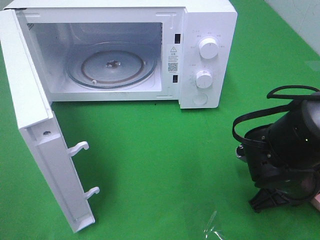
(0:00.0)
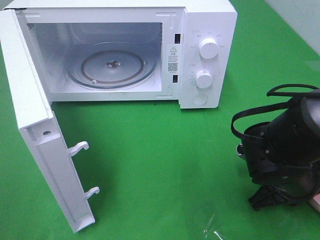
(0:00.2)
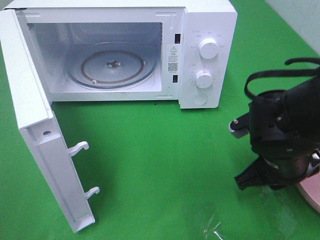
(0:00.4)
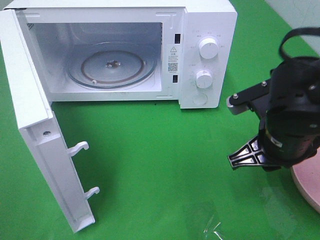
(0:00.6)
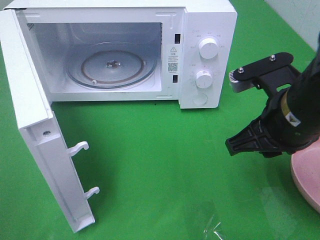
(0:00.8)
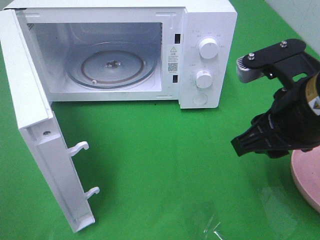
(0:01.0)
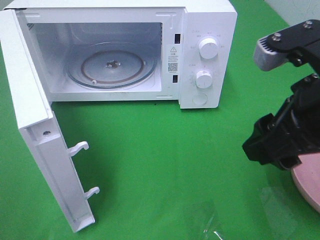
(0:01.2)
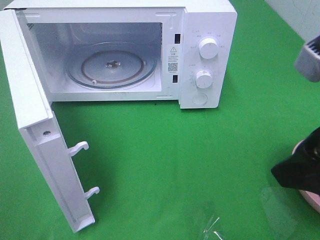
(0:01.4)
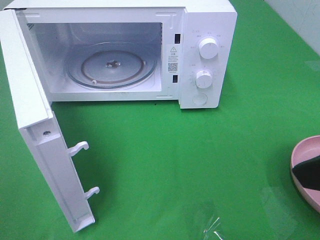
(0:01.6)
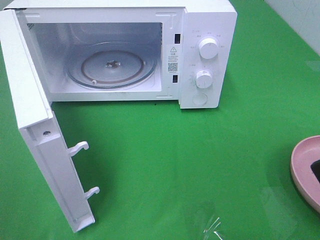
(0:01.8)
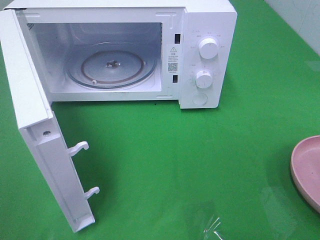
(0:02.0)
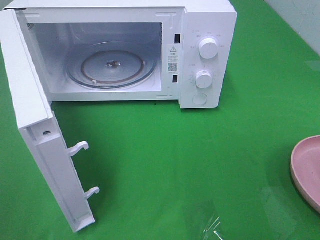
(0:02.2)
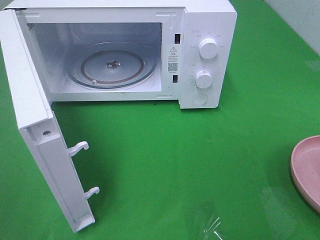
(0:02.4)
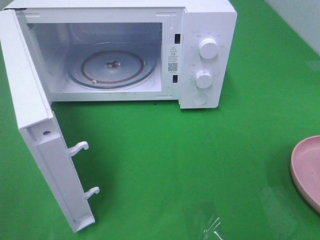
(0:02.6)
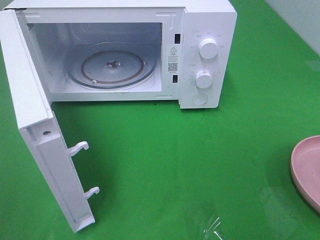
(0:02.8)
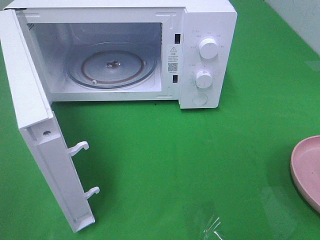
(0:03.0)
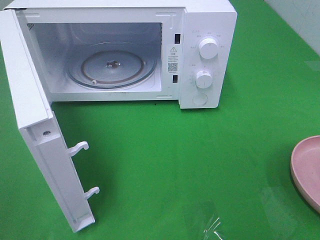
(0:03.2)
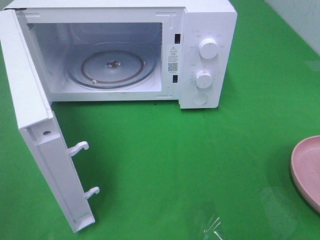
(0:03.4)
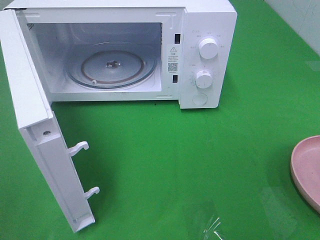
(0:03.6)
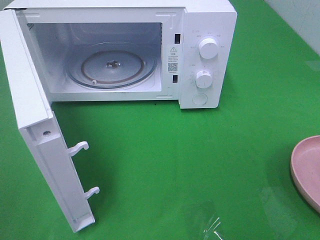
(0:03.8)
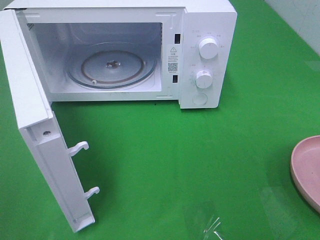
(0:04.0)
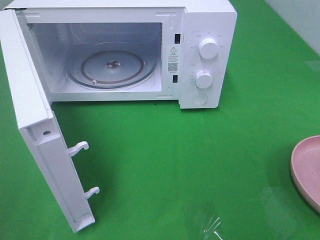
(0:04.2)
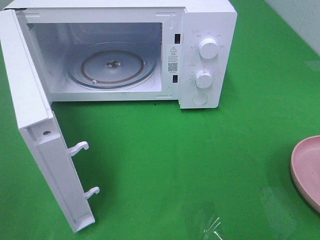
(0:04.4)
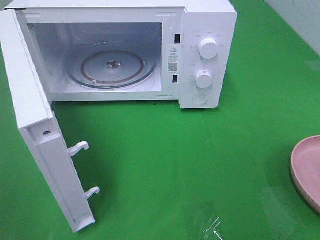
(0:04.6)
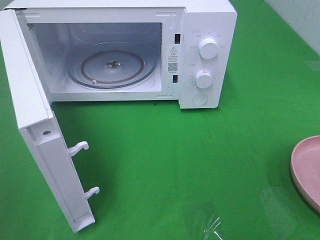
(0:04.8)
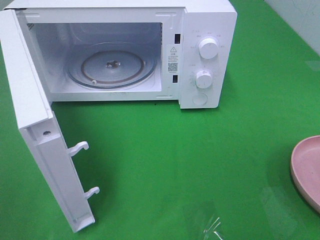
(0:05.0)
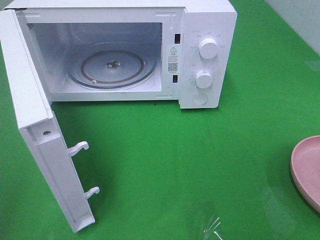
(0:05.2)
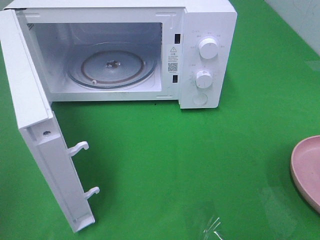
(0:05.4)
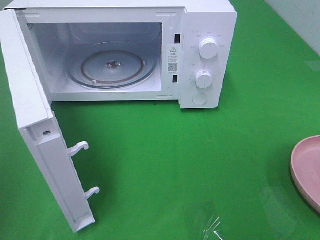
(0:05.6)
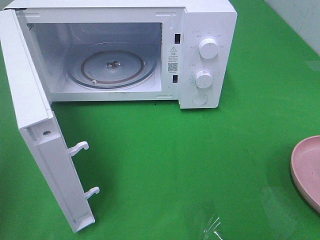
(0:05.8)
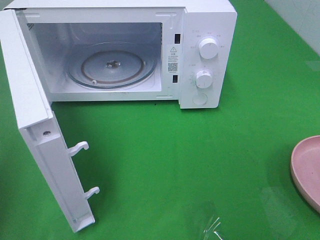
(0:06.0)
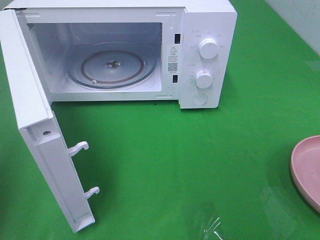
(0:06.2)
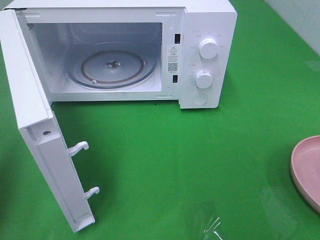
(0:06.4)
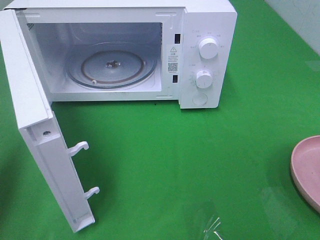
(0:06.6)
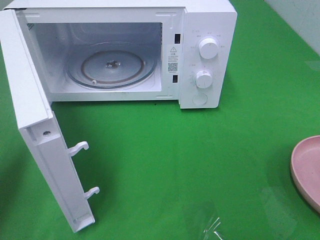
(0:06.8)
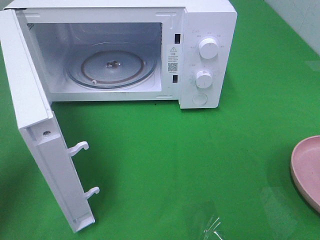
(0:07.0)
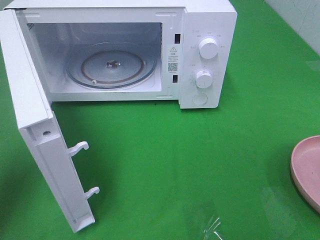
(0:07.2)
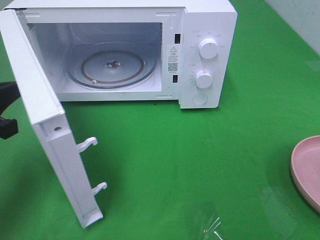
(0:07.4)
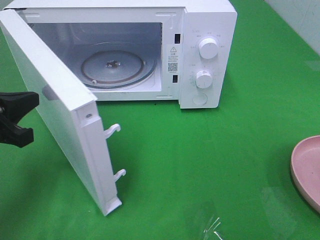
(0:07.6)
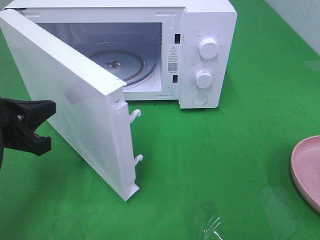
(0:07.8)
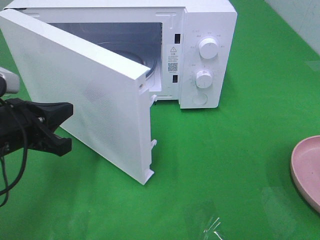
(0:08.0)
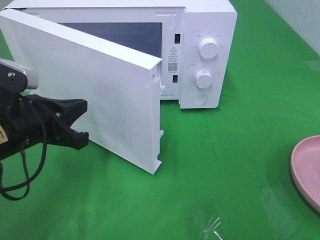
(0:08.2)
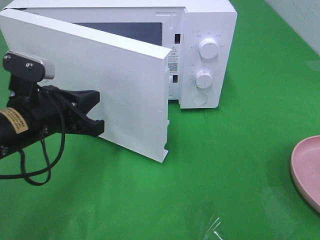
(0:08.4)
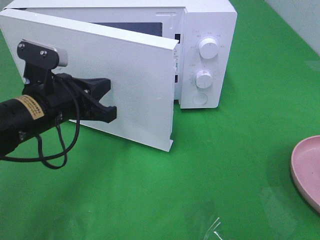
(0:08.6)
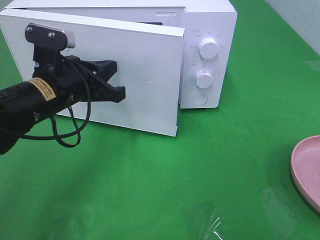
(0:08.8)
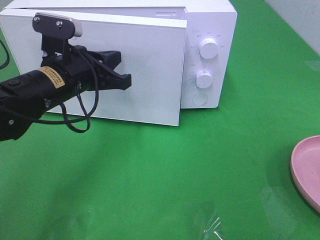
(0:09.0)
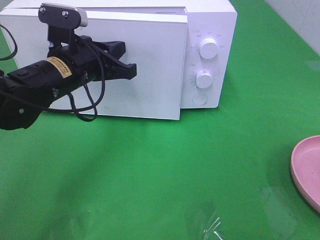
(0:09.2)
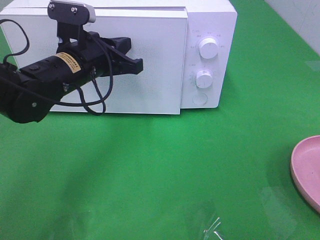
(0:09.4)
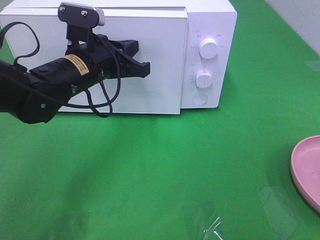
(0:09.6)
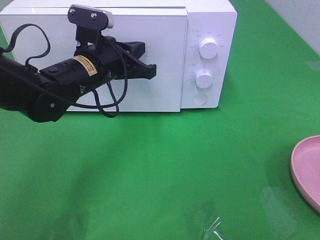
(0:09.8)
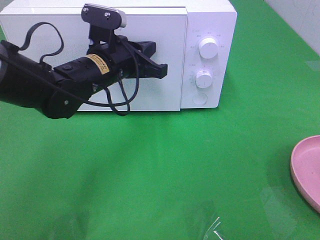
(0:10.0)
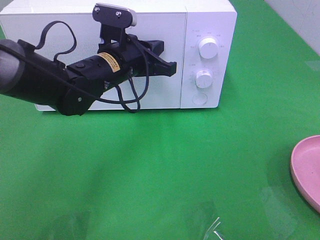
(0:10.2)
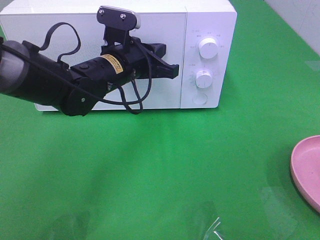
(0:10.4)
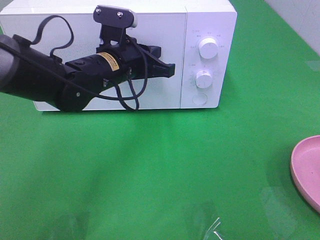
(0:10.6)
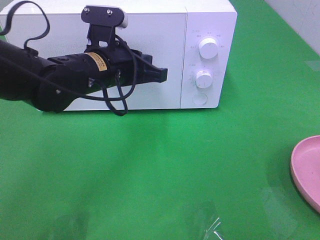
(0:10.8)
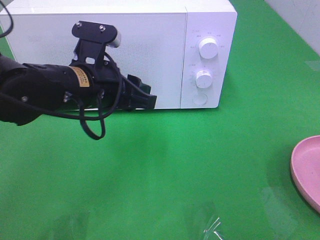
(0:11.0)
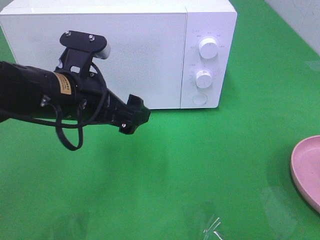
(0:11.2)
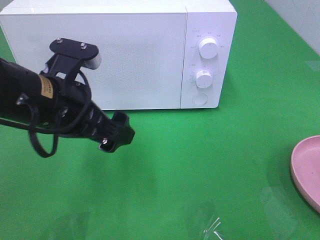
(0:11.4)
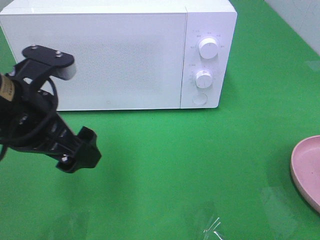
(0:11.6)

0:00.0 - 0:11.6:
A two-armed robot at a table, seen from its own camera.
Task of the whole recording: Heat the burger.
Step, 0:00.8 - 0:10.8: Left hand: close the microwave door.
0:00.0 - 0:01.4: The right gripper travels upward by roughly 20 cm, and opens its fingers.
0:01.4 - 0:02.8: The right gripper moves backward and to the right, approximately 15 cm.
0:02.8 - 0:04.4: Both grippers stay put.
0:05.8 - 0:07.2: The left gripper heads forward and downward, covering roughly 15 cm.
0:07.2 - 0:08.8: The left gripper shifts approximately 15 cm to the right and forward.
0:08.8 - 0:10.2: The left gripper goes roughly 10 cm to the right and forward.
0:10.2 - 0:11.6: The left gripper goes approximately 20 cm backward, to the left and upward, and opens its fingers.

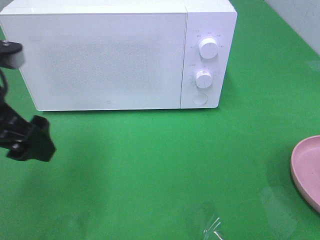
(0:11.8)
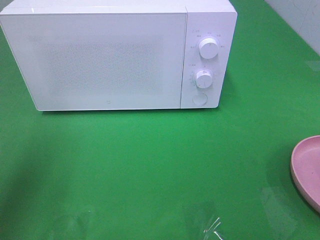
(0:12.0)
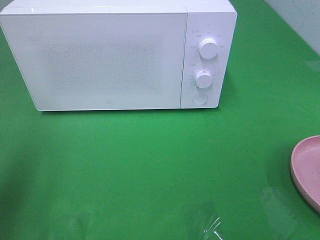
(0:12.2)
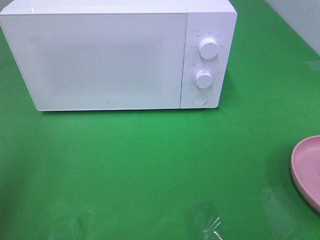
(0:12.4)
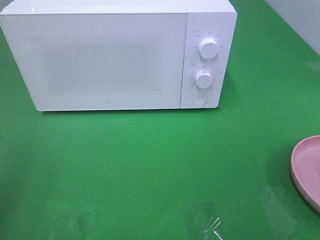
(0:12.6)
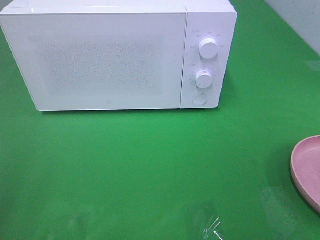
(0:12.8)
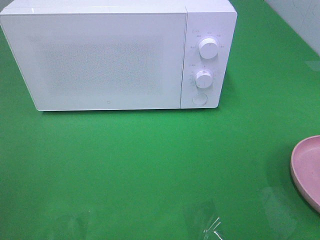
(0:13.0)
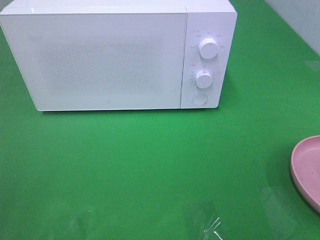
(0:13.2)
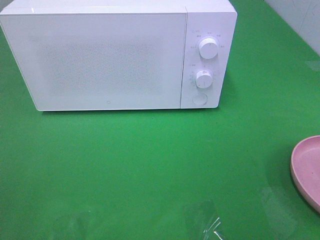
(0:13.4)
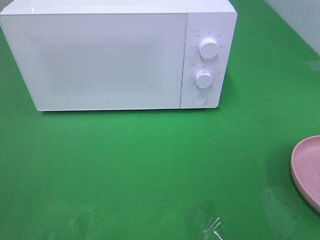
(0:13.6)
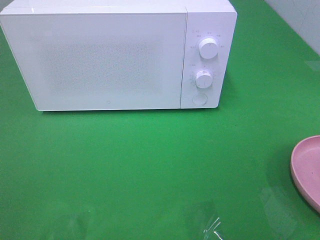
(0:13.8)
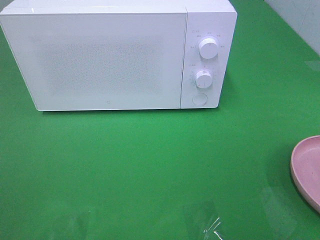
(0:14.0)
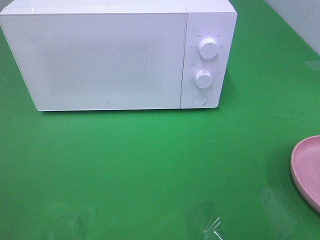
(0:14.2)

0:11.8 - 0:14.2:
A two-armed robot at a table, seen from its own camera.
Task of the whole recording: Heat the burger.
0:11.8 - 0:13.0: The left gripper is displaced backward and to the left by roughly 20 cm.

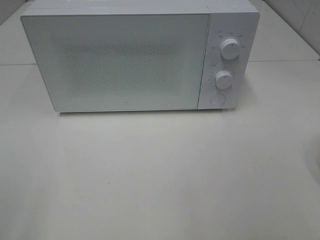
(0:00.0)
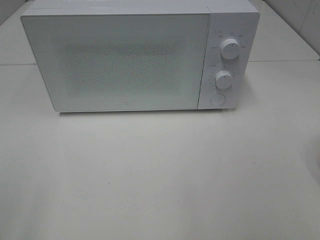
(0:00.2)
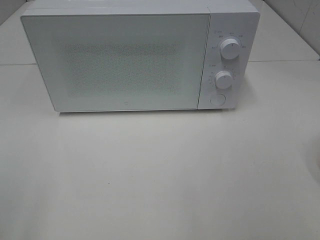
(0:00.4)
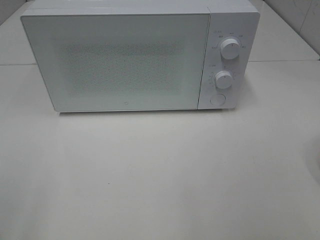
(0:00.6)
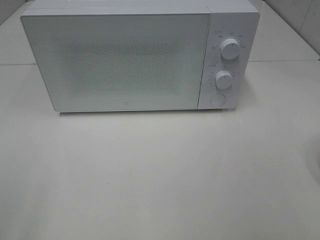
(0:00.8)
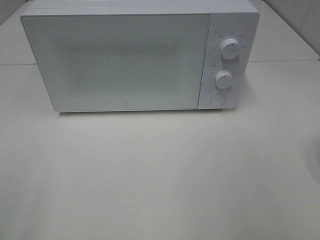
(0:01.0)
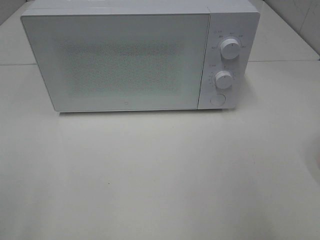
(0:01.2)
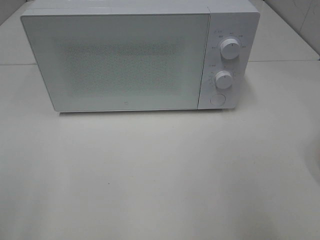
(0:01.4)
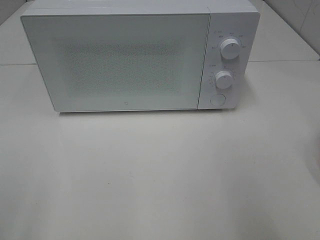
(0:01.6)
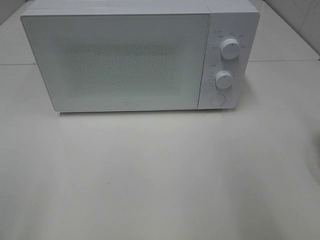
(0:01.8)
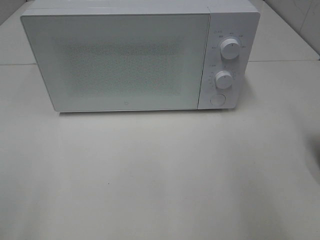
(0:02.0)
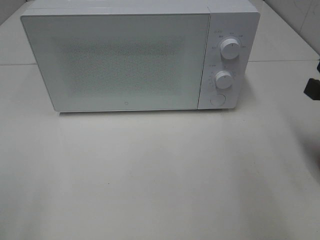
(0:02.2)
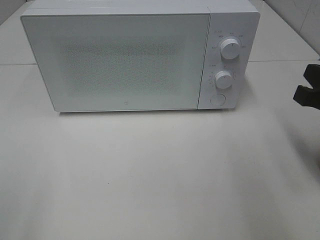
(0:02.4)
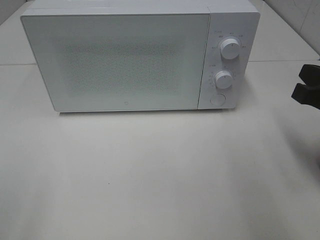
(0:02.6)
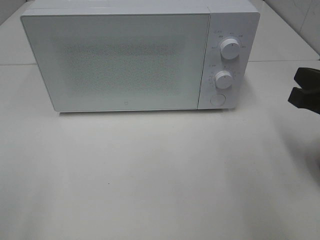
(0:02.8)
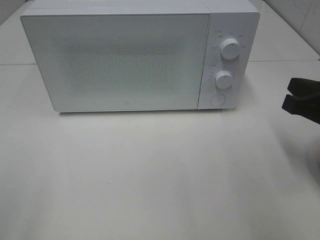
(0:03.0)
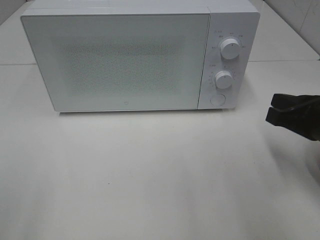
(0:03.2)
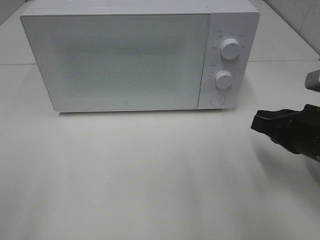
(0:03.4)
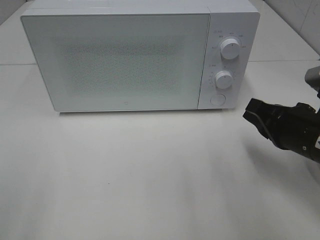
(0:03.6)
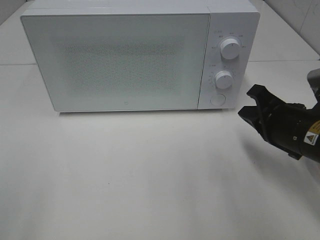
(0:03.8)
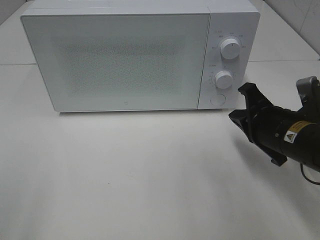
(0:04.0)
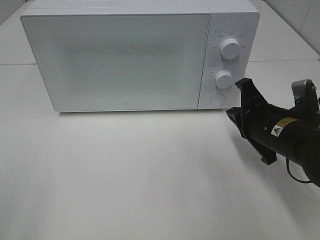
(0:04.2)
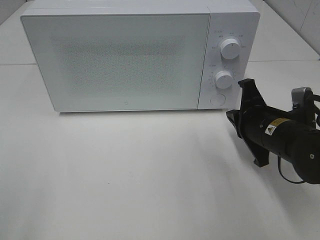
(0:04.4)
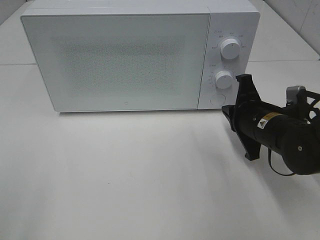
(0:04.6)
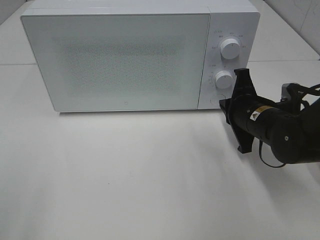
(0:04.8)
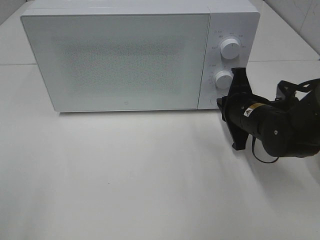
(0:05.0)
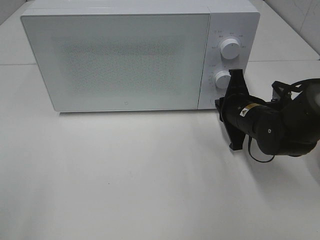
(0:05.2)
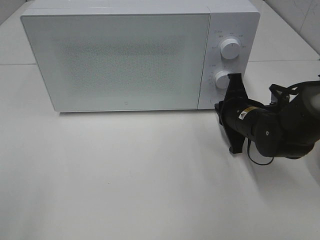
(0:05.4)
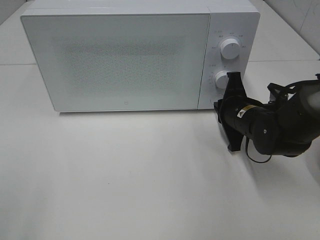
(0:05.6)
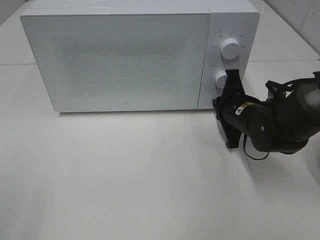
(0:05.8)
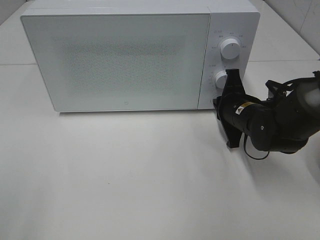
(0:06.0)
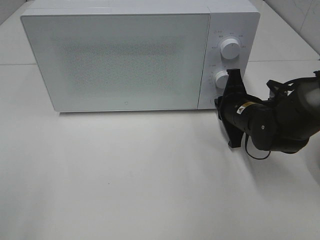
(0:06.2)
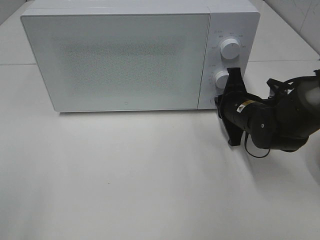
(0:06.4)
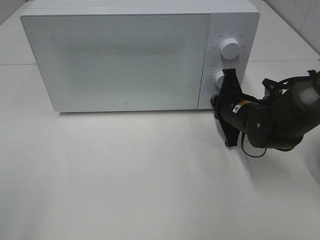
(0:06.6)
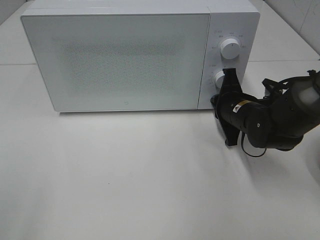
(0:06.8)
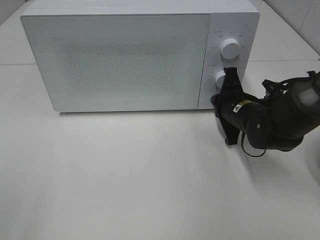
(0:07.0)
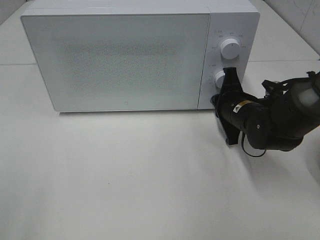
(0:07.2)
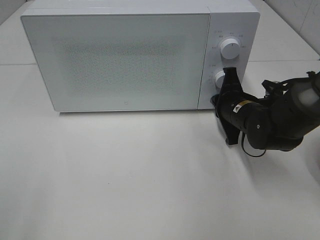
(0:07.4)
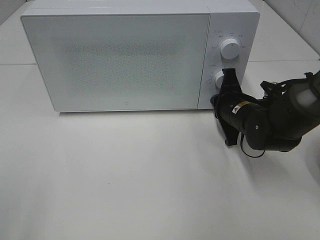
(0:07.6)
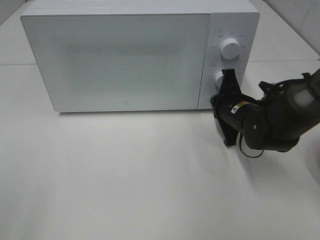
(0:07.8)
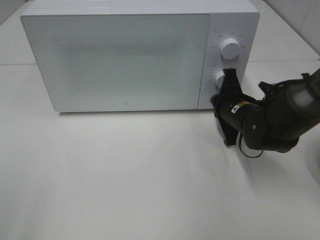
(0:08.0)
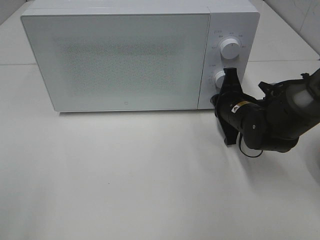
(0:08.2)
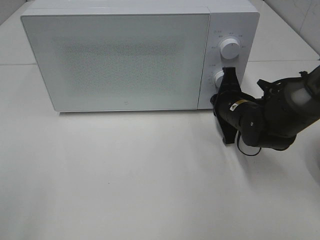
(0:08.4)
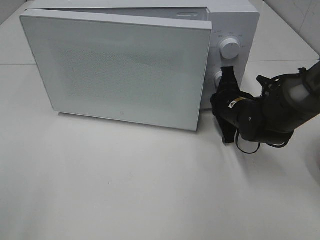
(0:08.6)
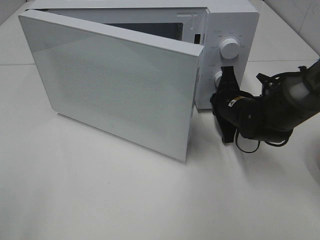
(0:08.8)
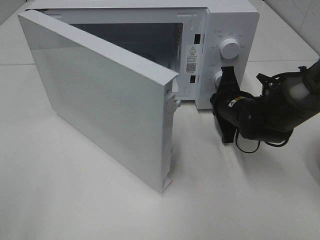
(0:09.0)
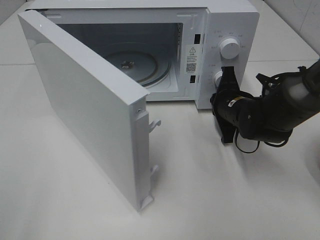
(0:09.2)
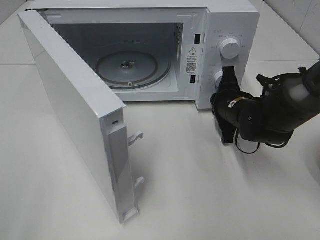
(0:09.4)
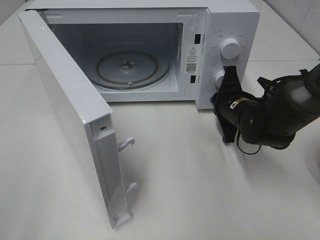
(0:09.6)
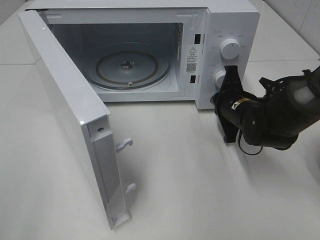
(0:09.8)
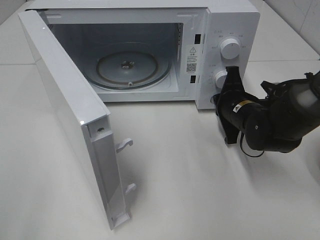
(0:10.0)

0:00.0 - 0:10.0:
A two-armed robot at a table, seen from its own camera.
Task of the whole recording: Heat the burger.
0:01.4 - 0:02.8: The right gripper is displaced downward and forward by roughly 15 cm.
0:02.8 - 0:04.2: The right gripper is displaced downward, to the left and forward by some 15 cm.
0:04.2 - 0:05.8: The right gripper heads forward, covering roughly 5 cm.
0:05.8 - 0:07.2: The two grippers keep their place.
0:07.2 - 0:08.6: The two grippers keep their place.
